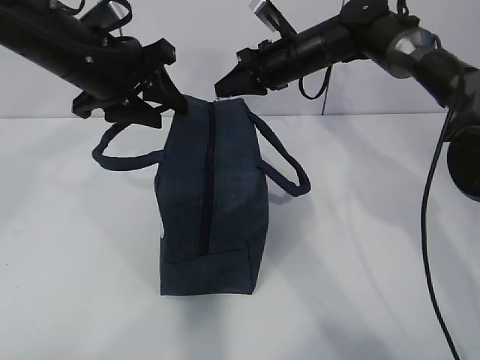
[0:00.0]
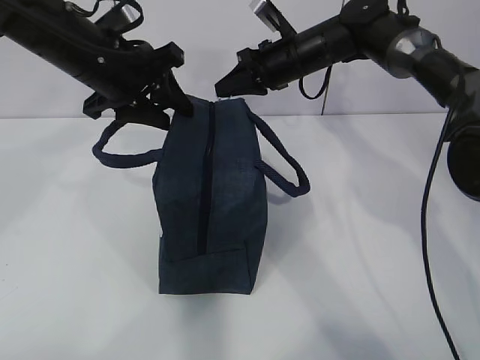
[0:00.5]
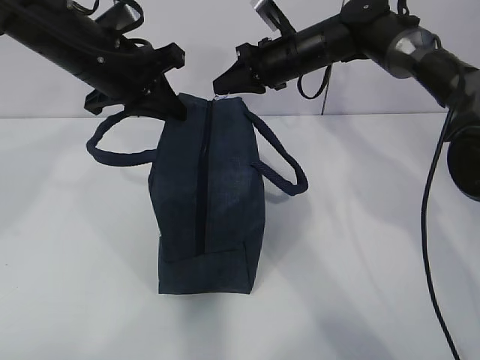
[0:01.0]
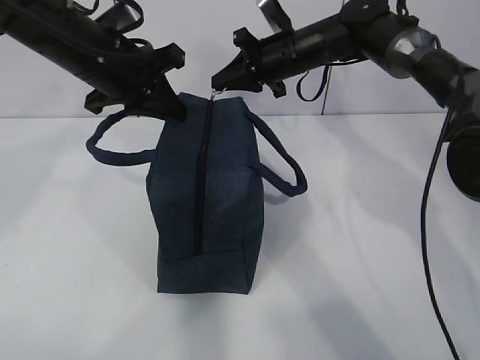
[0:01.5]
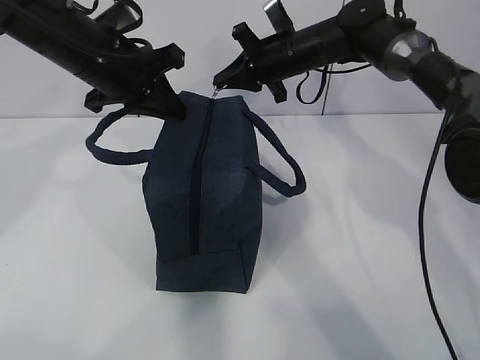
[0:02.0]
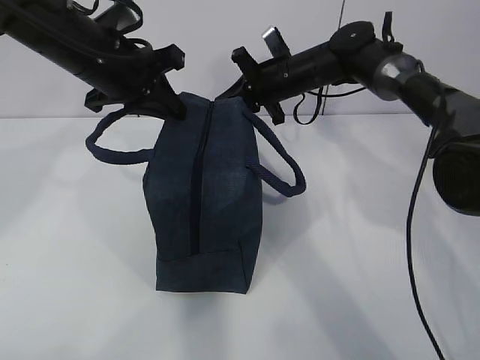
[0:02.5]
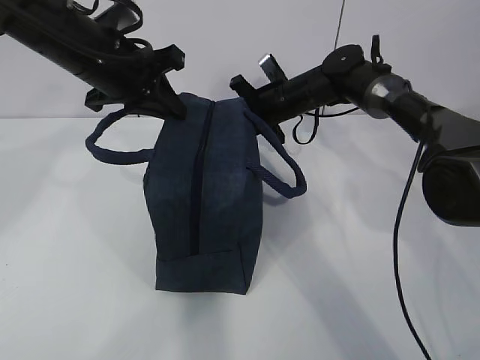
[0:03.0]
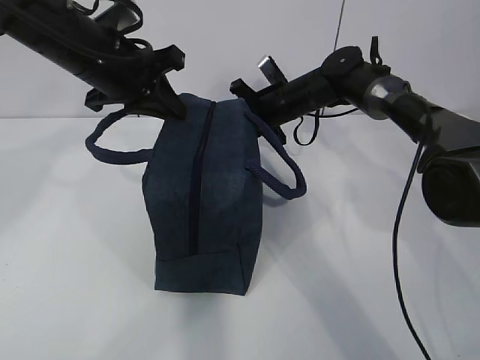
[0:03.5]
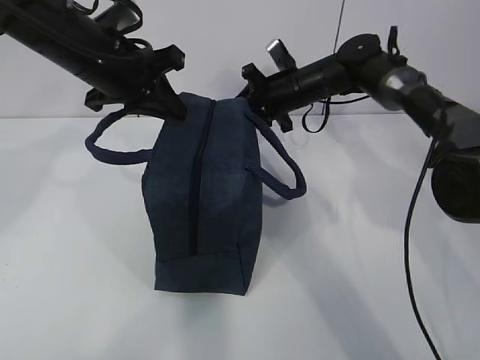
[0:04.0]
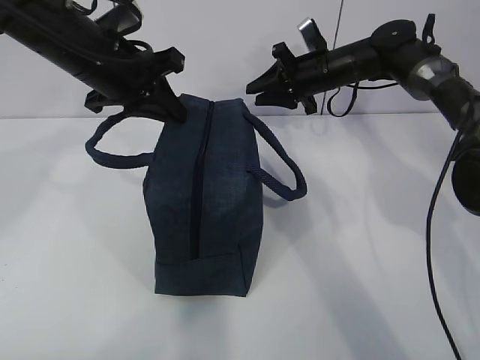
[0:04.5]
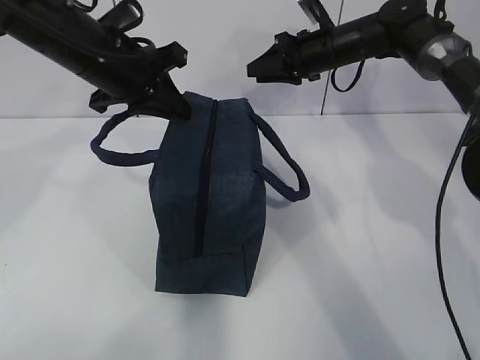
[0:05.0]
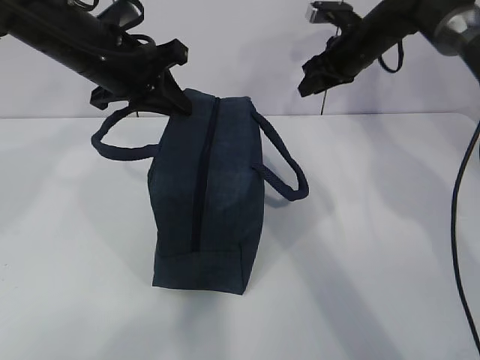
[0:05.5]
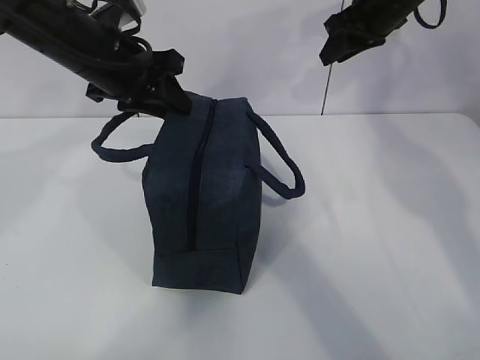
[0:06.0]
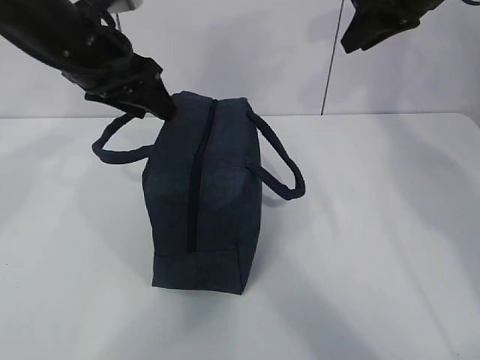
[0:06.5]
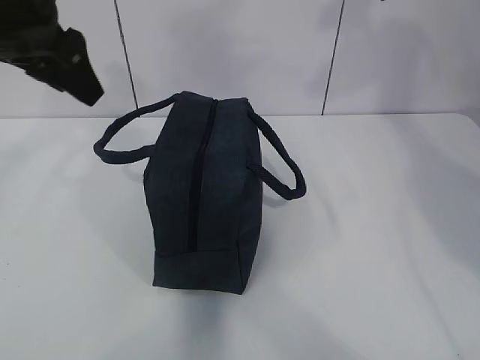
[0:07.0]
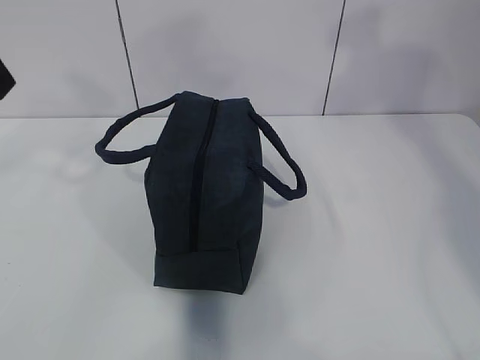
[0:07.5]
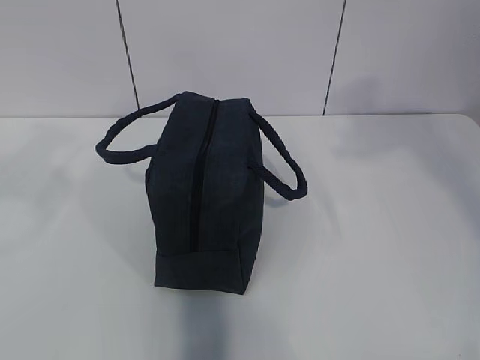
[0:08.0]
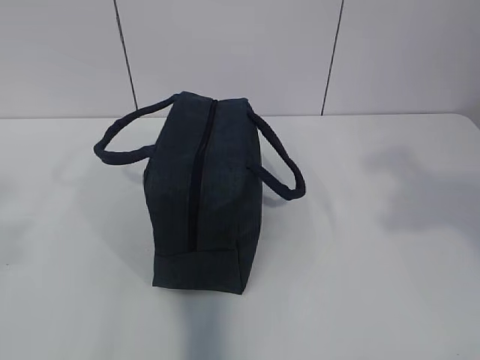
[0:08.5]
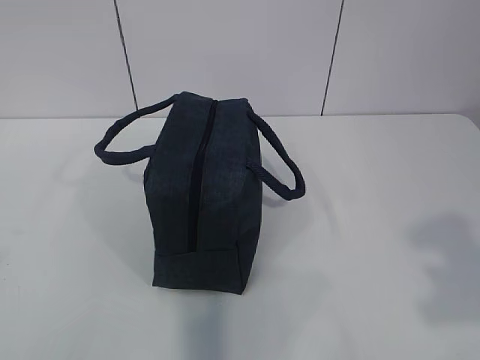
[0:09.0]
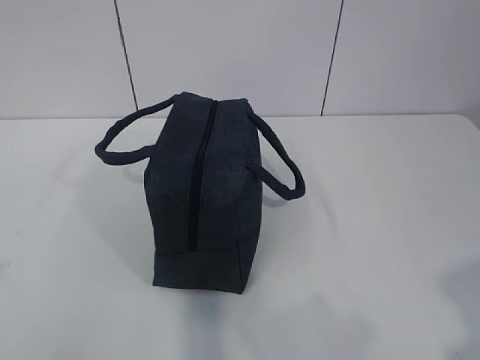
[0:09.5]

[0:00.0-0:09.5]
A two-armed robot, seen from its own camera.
0.0 to 2.0 s: The left gripper closes up.
2.0 to 4.0 s: The right gripper shifts approximately 5 cm downward.
4.0 to 5.5 s: The right gripper travels to the right and upward by some 10 cm.
5.5 to 7.5 s: The left gripper heads backward, upward and to the left, covering about 20 cm, and opens up. Meanwhile the right gripper goes some 35 cm backward and upward.
7.5 to 9.5 s: The left gripper heads backward, covering roughly 25 cm. The right gripper goes some 35 cm backward and downward.

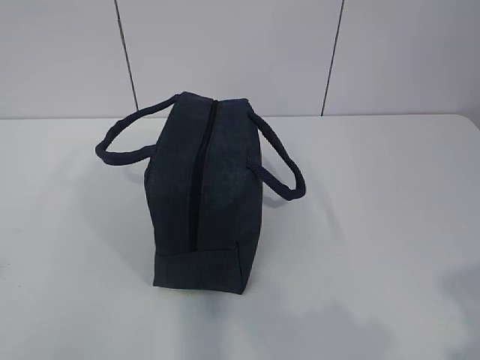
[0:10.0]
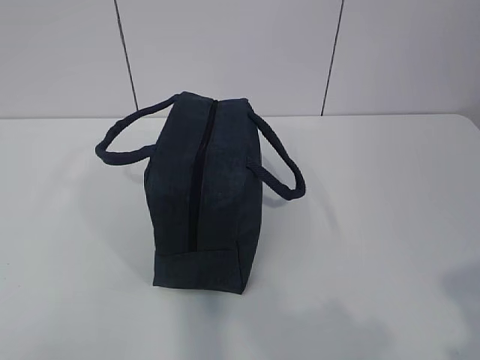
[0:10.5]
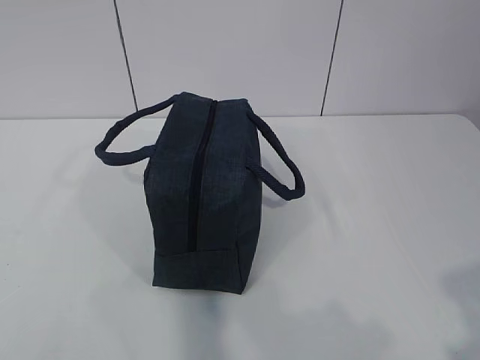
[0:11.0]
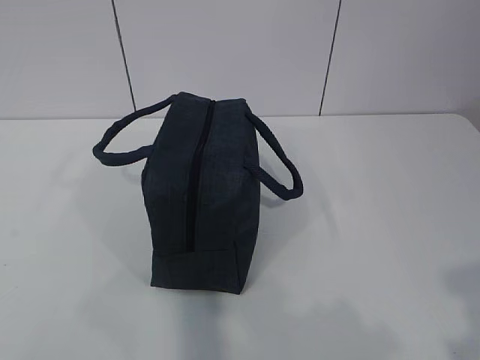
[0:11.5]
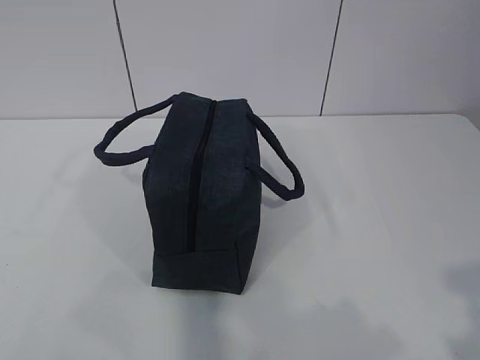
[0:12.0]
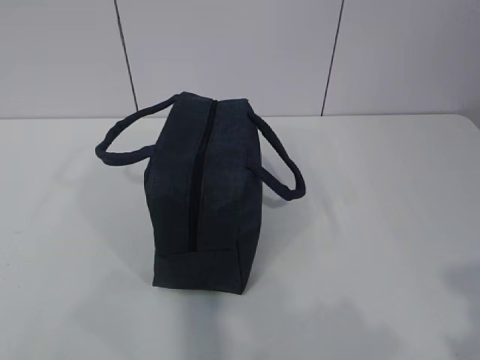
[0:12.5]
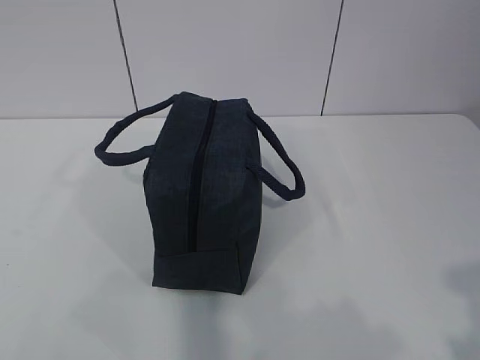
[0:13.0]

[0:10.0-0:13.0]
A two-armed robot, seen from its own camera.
10.0 to 11.5 s: There are only small adjustments of the grippers.
11.5 to 13.0 s: The grippers make only small movements.

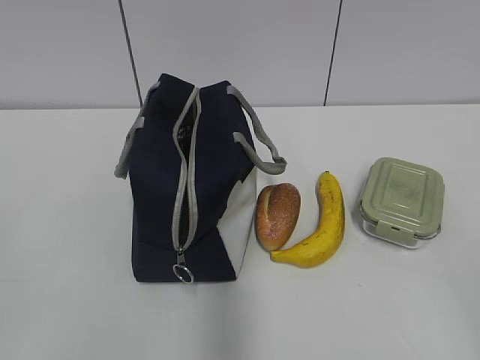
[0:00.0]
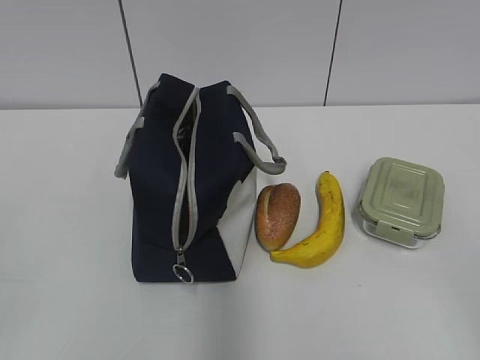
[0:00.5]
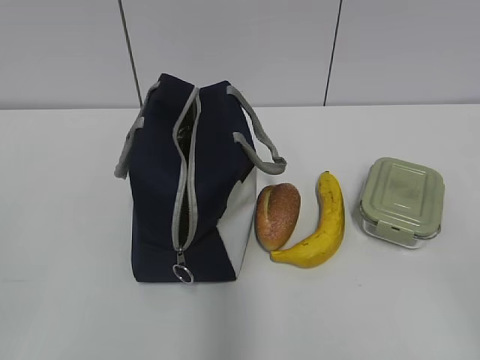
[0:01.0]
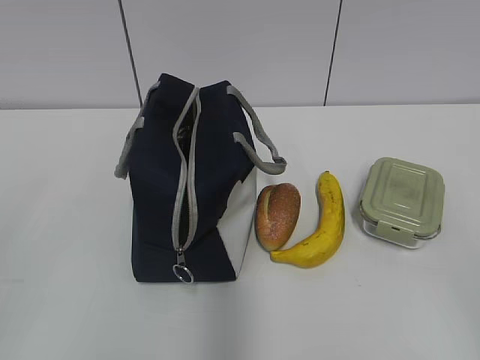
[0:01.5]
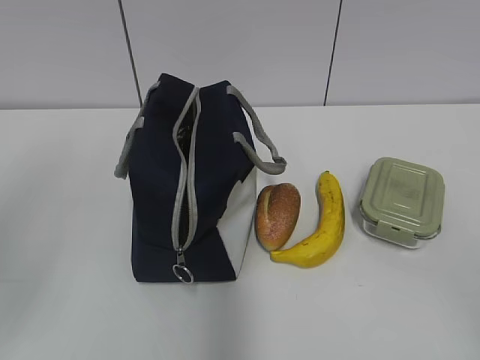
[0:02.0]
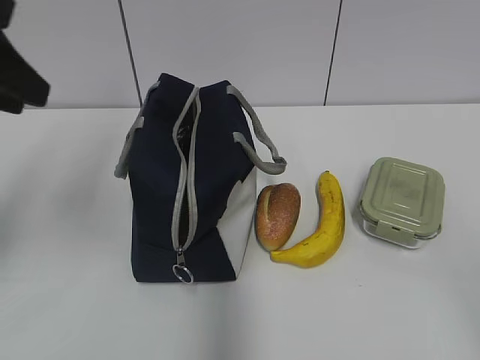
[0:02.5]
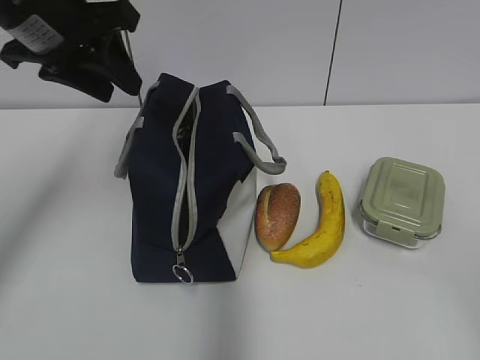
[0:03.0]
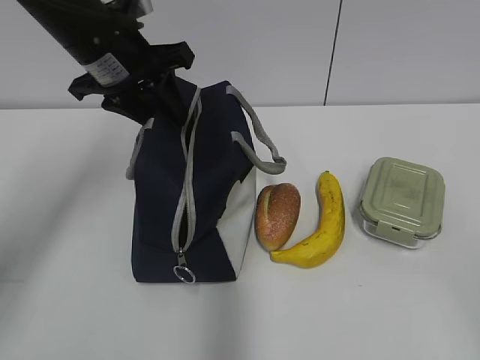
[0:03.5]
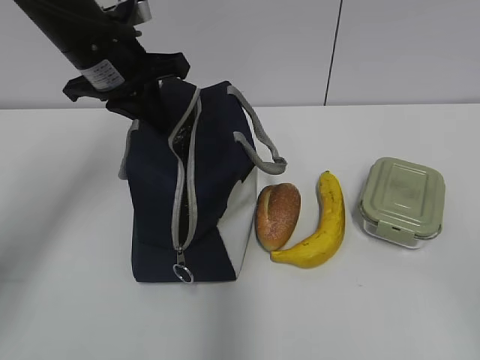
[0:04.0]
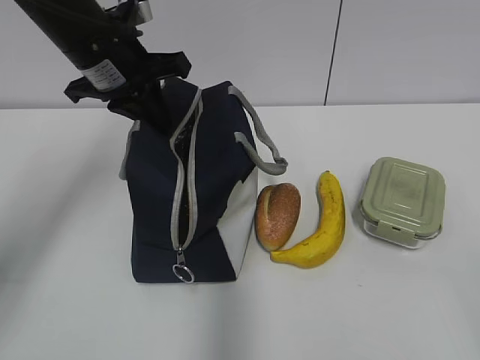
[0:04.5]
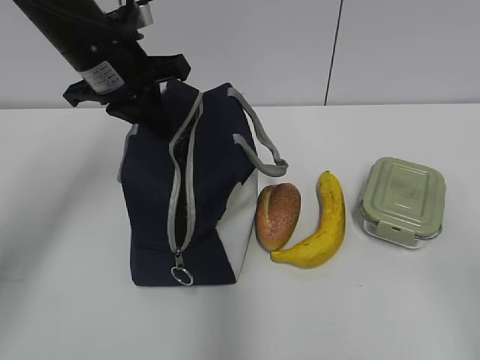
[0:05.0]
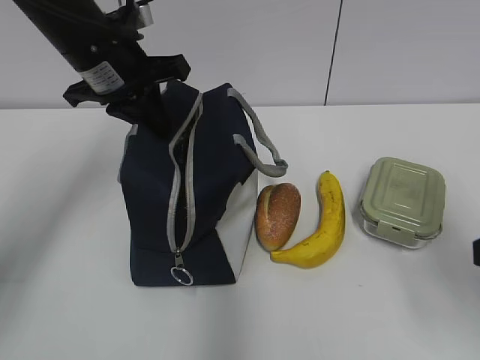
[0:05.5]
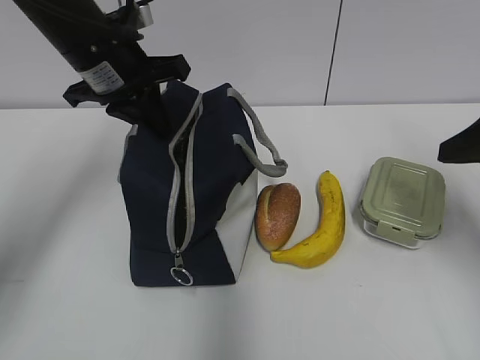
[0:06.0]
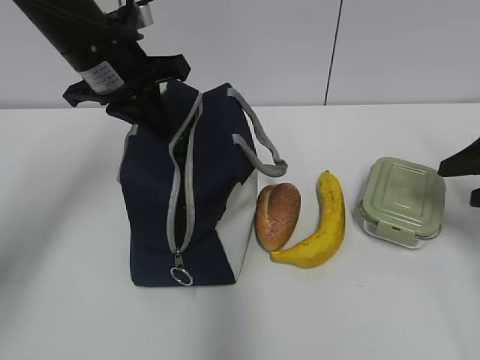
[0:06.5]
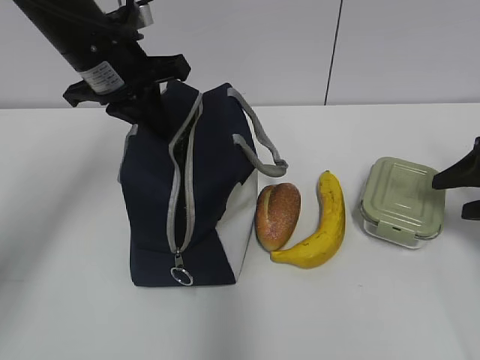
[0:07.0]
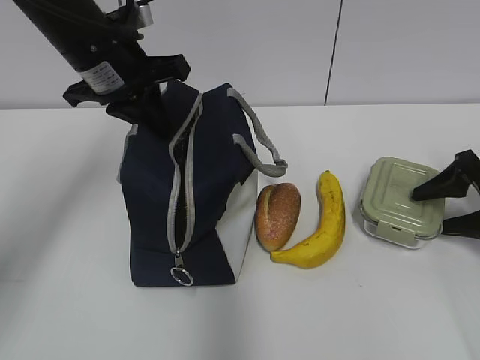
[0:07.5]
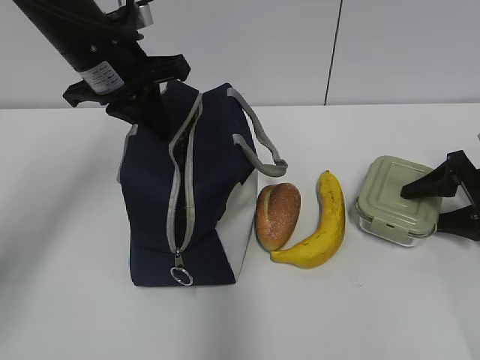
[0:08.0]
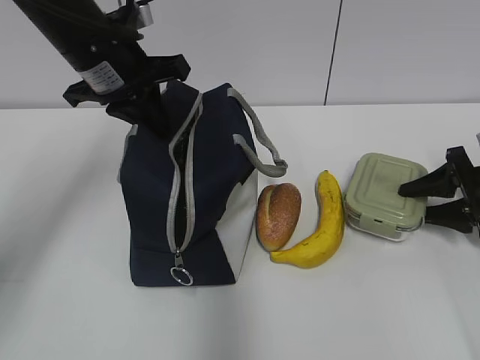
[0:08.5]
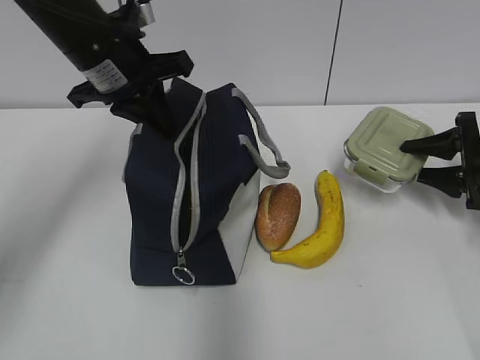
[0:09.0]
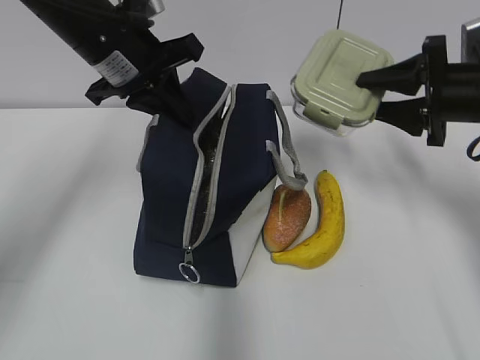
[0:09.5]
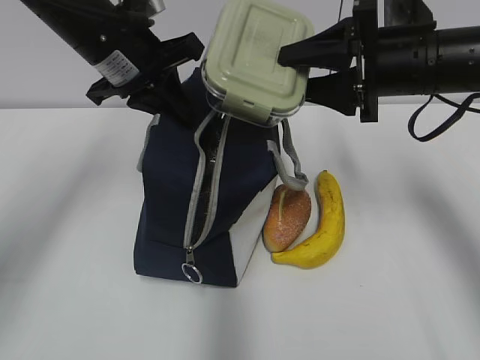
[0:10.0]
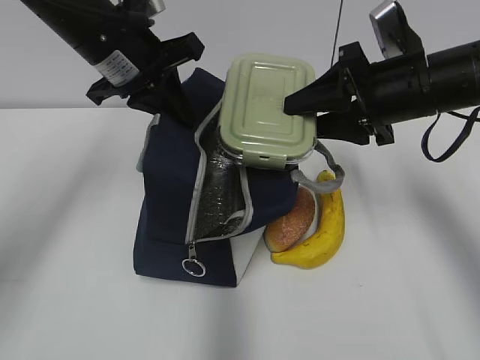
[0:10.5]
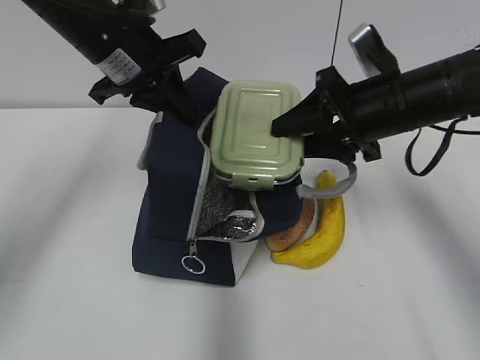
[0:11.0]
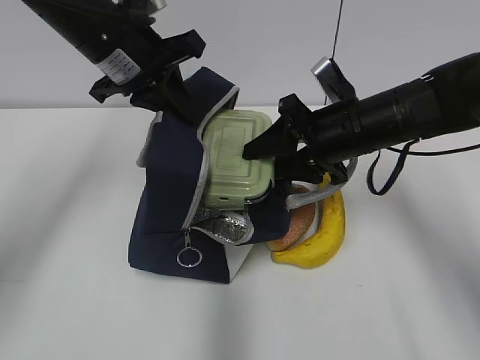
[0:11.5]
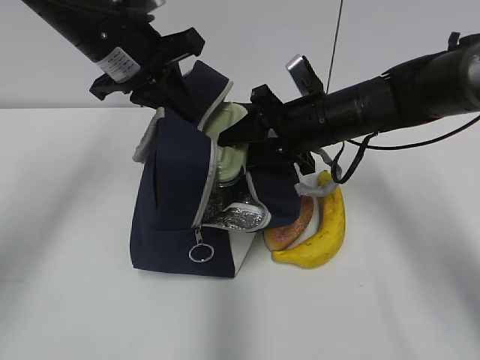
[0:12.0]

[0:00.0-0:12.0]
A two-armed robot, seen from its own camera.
2.0 to 4.0 s: The left gripper goes roughly 30 cm forward and to the right, and closes its fingers.
4.0 to 6.0 s: The right gripper travels forward by roughly 25 cm.
6.0 to 8.0 s: The right gripper travels downward, forward and to the right by approximately 20 cm.
8.0 to 10.0 s: The right gripper shifts about 25 cm to the left and upward.
10.0 to 12.0 s: The right gripper shifts approximately 10 cm downward and to the left.

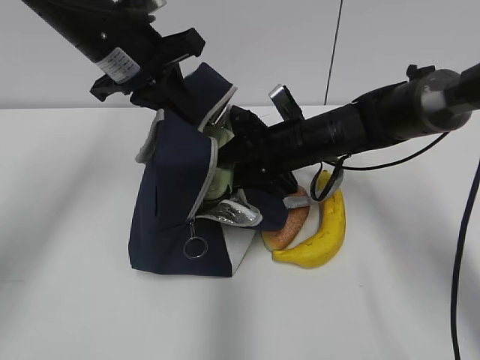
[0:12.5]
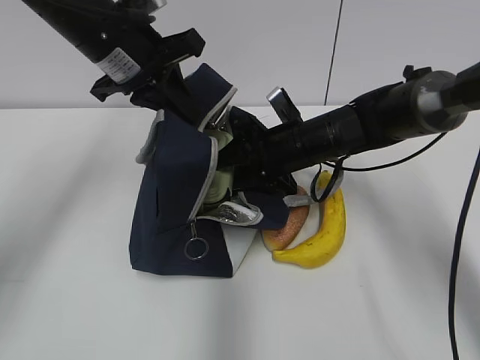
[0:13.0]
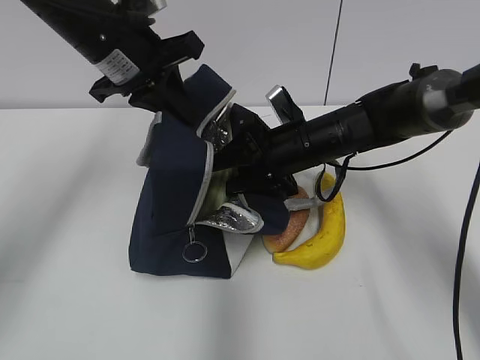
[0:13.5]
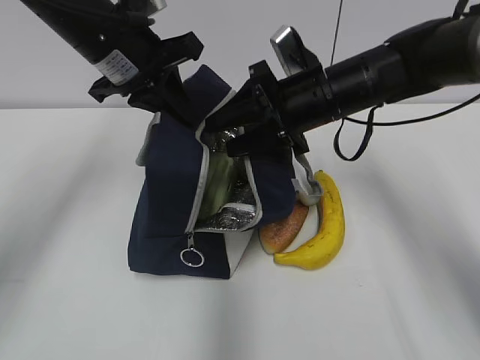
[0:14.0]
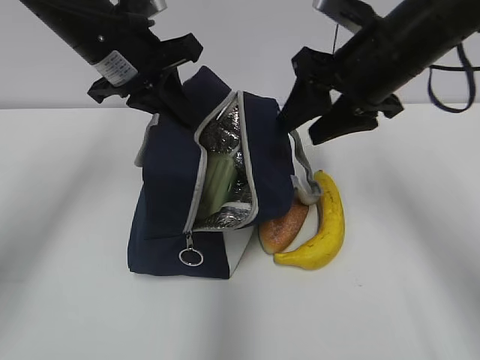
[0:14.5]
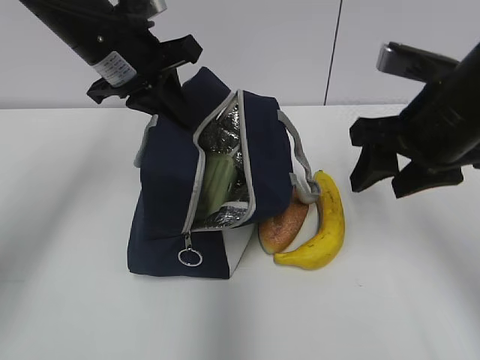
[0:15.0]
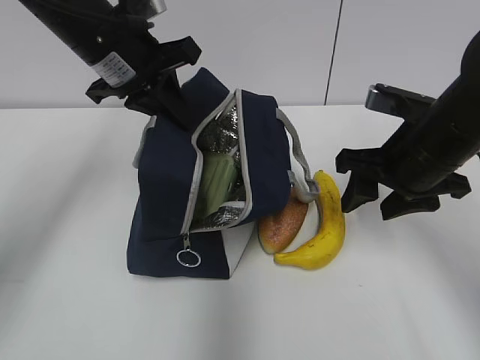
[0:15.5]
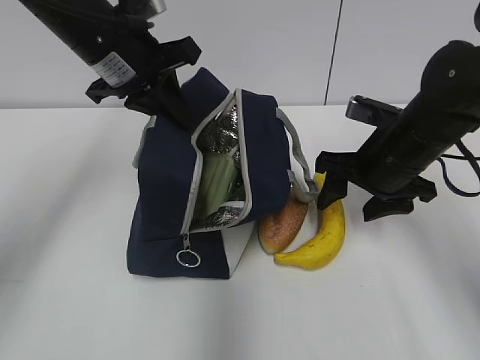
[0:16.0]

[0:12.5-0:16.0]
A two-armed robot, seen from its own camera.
12.5 to 14.5 s: The right gripper is displaced upward and backward by approximately 15 cm.
14.5 to 16.0 s: The right gripper heads downward, covering some 10 cm.
